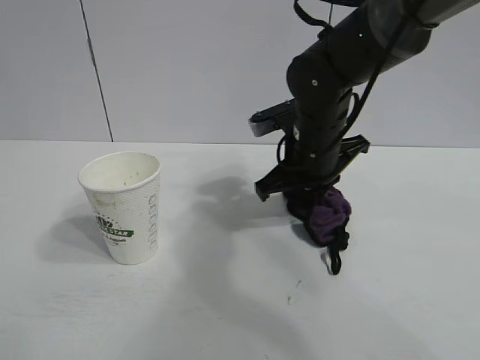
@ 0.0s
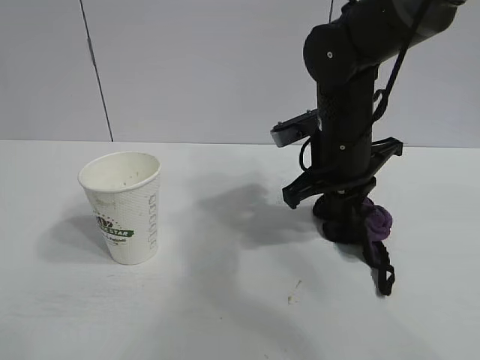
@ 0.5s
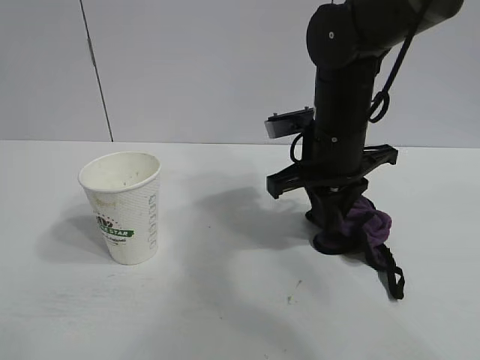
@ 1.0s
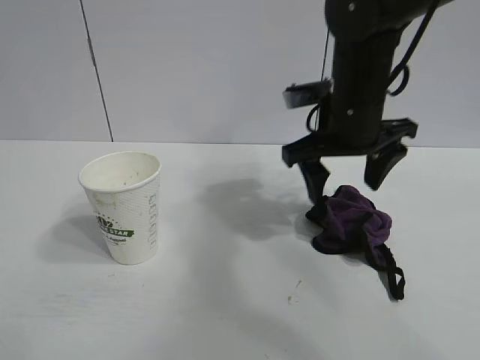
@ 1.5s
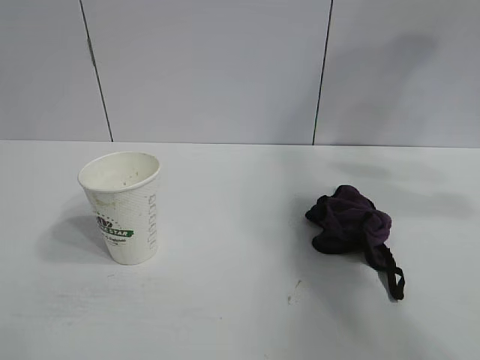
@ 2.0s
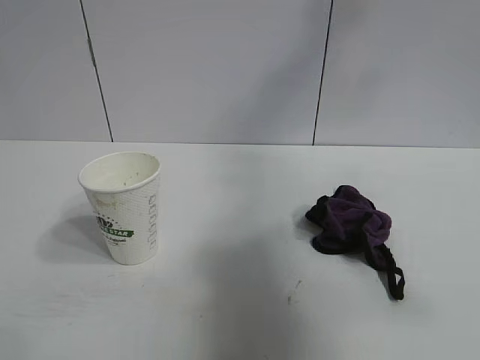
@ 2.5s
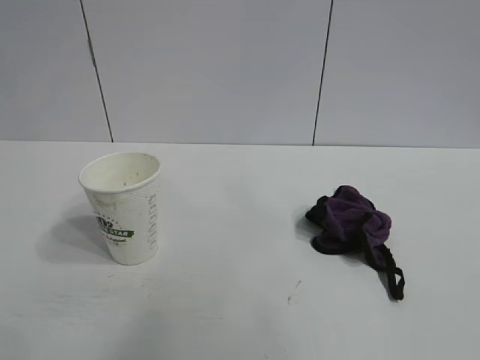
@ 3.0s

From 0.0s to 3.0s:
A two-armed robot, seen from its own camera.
Task of the whole recording: the left gripper pick up the fallen cup and place it upright, the right gripper grasp the black rag and wipe the stain on the table, the right gripper put the black rag back in its original position.
Step, from 0.5s to 1.0s: Place the rag on the table with right gripper.
